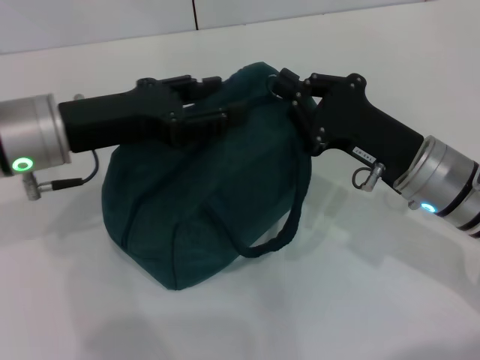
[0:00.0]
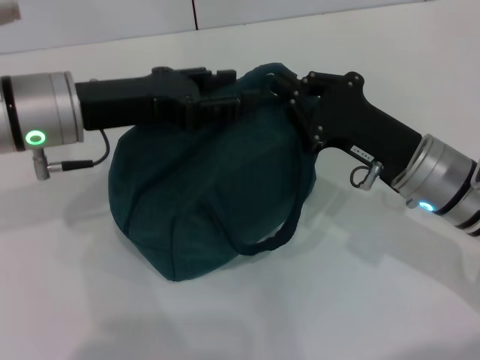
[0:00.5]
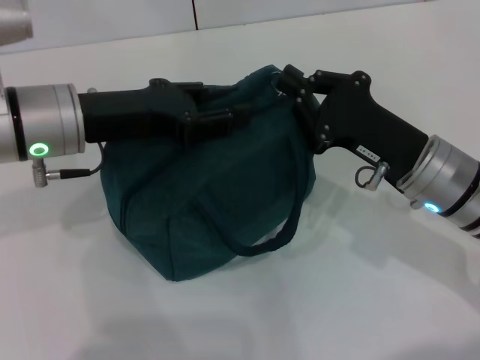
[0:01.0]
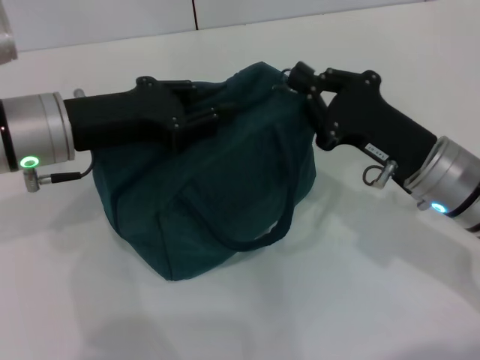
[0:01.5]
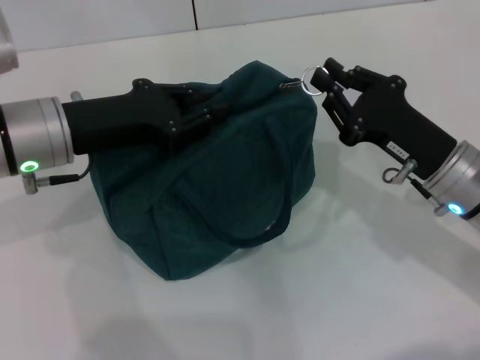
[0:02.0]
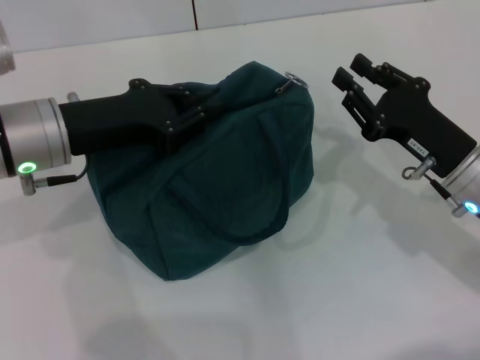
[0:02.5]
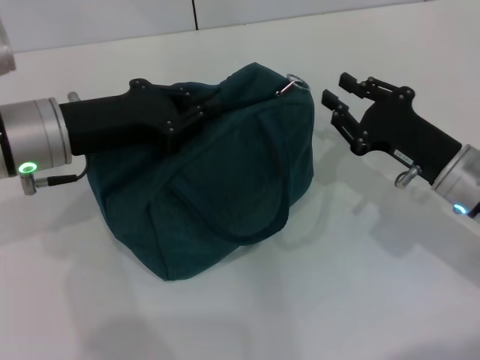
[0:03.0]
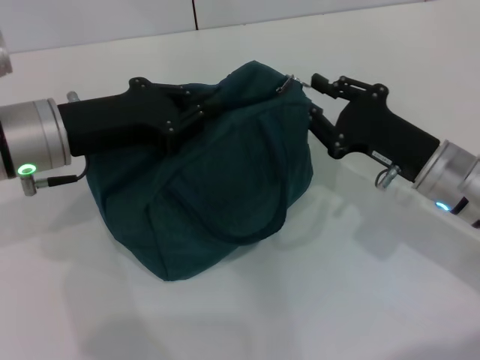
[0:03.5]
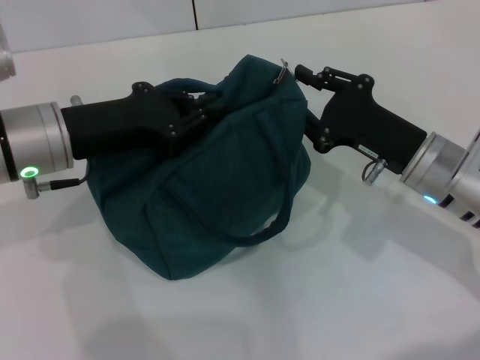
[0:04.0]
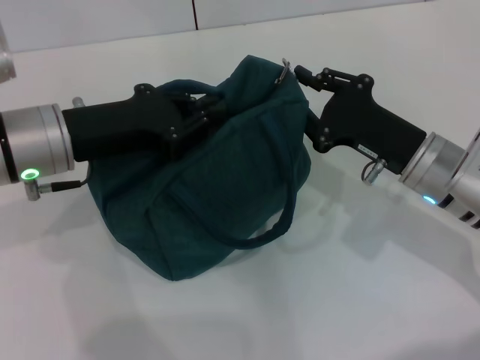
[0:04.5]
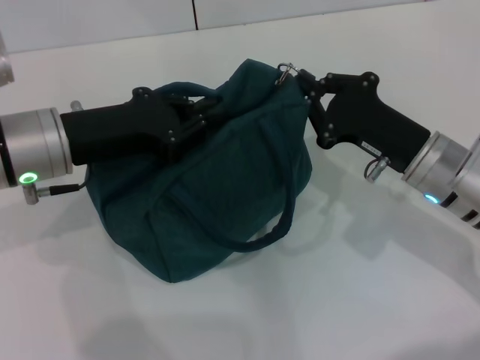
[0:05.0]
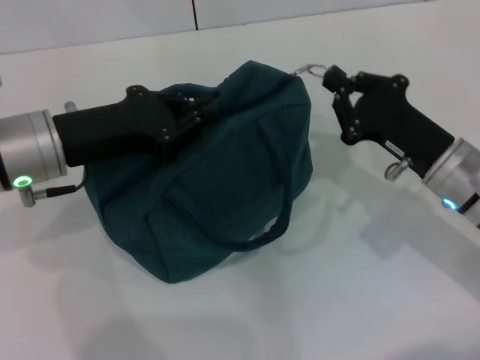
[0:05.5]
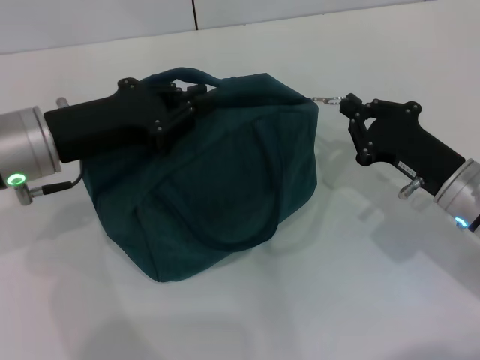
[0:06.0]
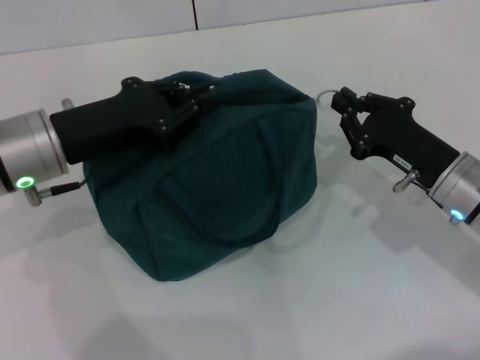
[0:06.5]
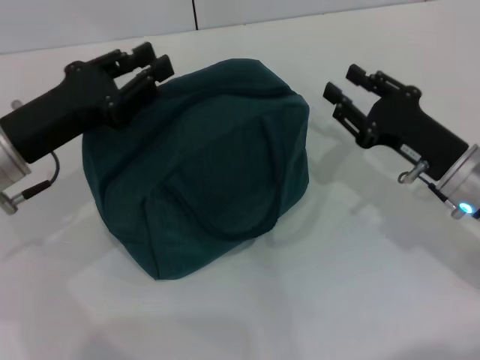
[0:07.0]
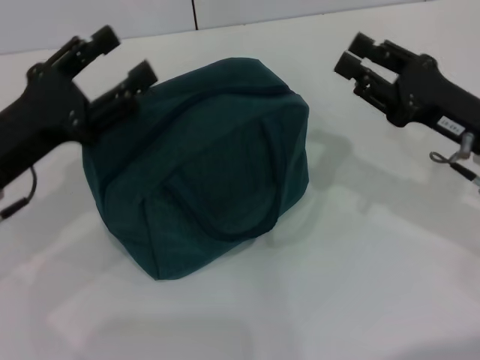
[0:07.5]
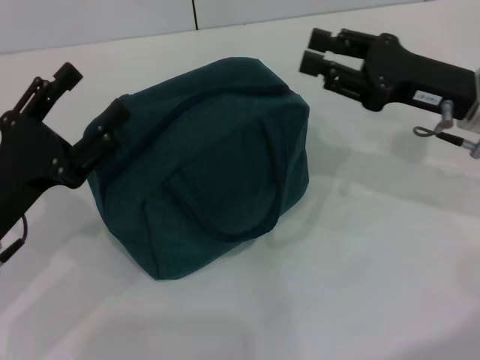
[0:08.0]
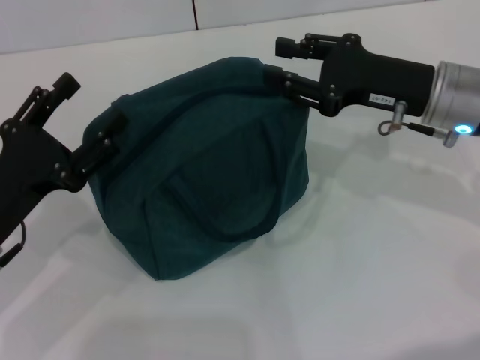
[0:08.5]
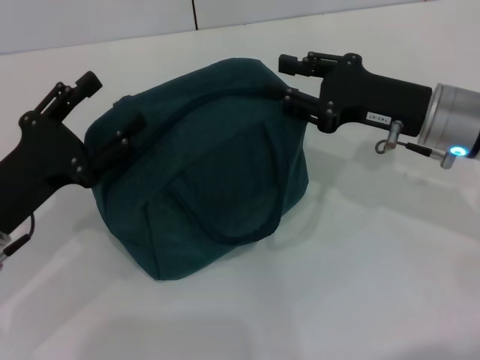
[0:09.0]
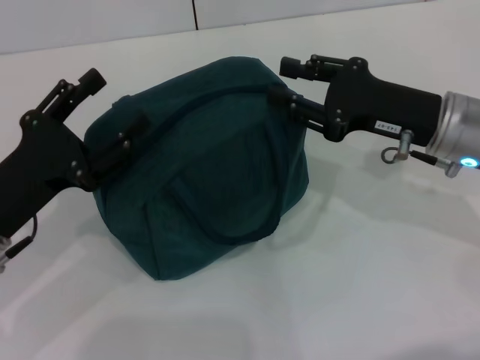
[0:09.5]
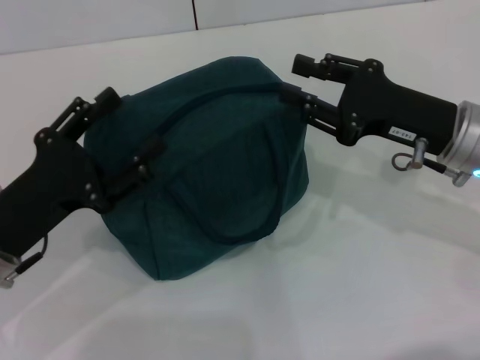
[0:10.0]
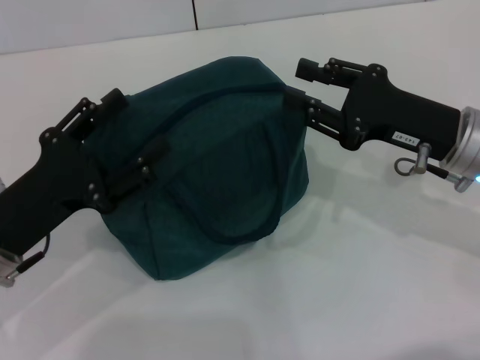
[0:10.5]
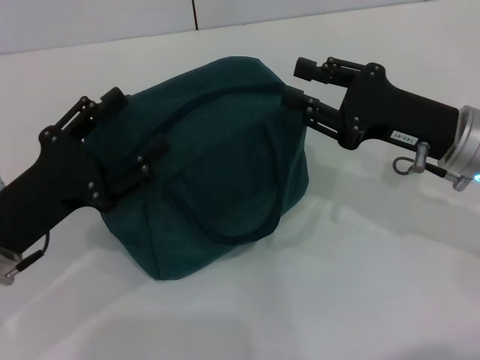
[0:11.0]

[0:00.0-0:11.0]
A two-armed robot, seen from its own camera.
Step, 0:00.0 to 0:06.5: Zip up the lunch bag with your right hand.
0:00.0 to 0:05.5: The grippers make only small movements.
0:05.5 to 0:07.5: The right gripper shifts by approximately 5 cm, and opens up; the left gripper changes place by roughly 5 cm, and opens.
0:07.5 to 0:09.0: The right gripper shifts by about 5 cm.
0:09.0 to 0:11.0: The grippers make only small movements.

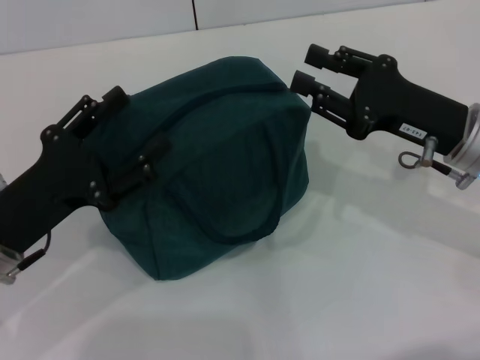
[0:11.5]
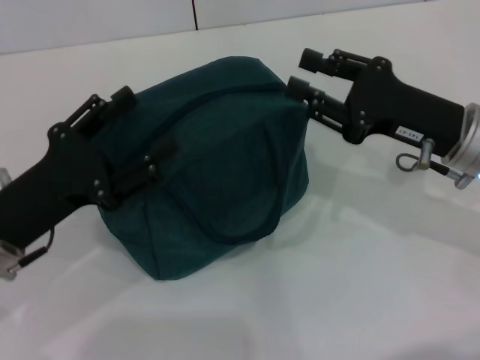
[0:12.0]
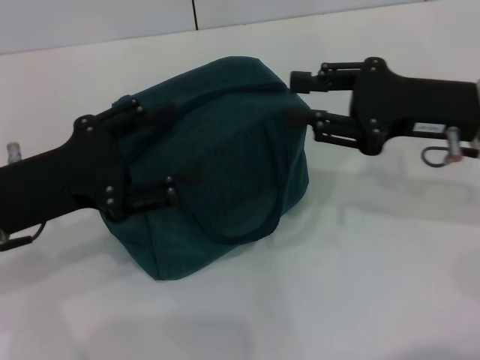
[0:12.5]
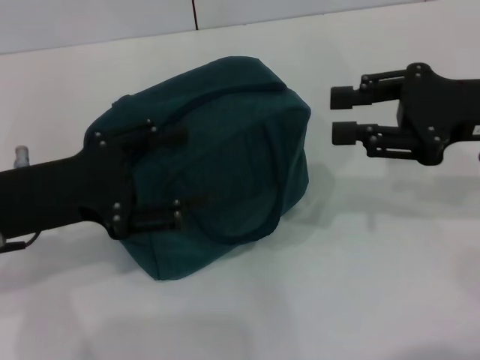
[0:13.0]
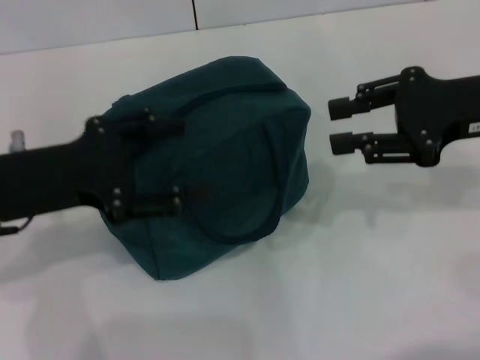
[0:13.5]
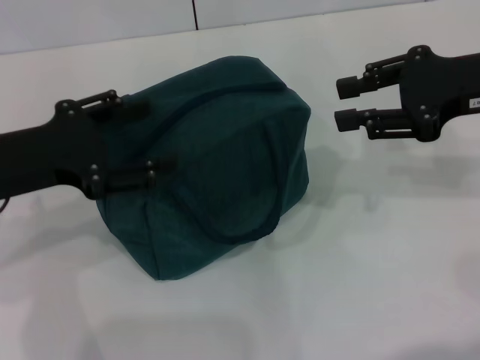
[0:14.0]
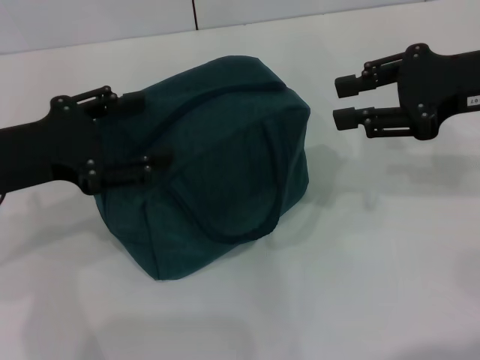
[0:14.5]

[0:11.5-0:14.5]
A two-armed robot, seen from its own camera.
0:11.5 to 0:13.0: The grippers both shift upward by approximately 5 cm.
0:13.0 to 0:14.5: The grippers stay close to where they were, moving slightly.
